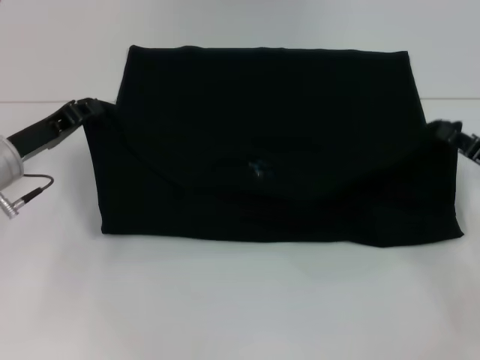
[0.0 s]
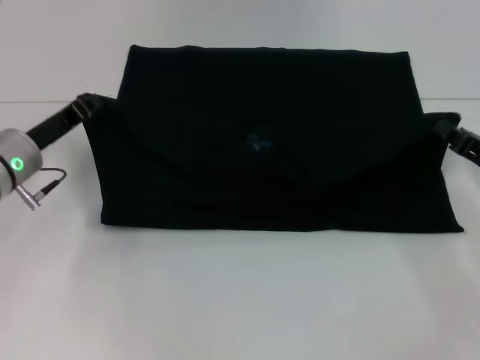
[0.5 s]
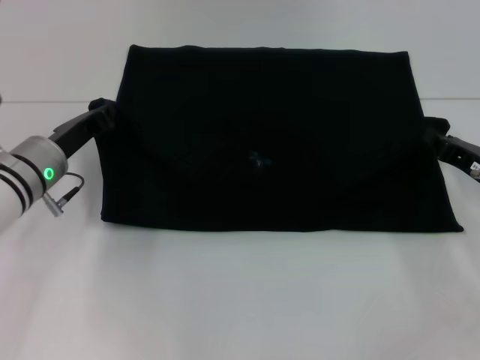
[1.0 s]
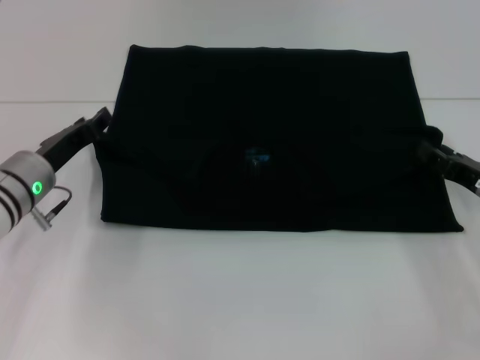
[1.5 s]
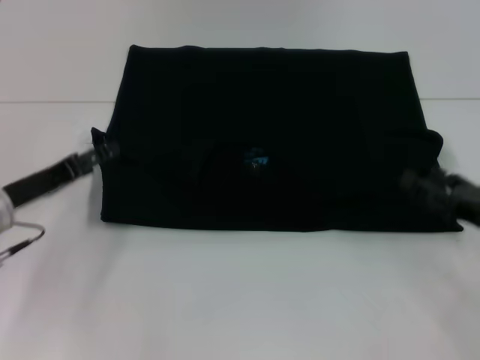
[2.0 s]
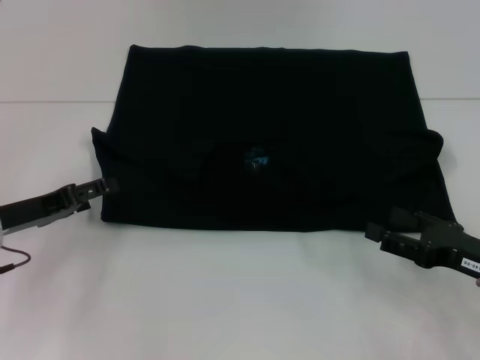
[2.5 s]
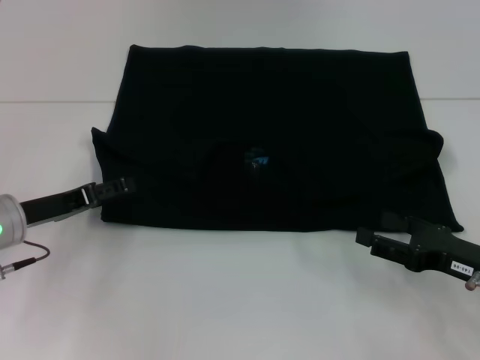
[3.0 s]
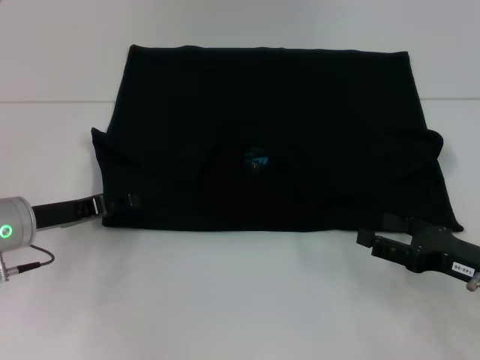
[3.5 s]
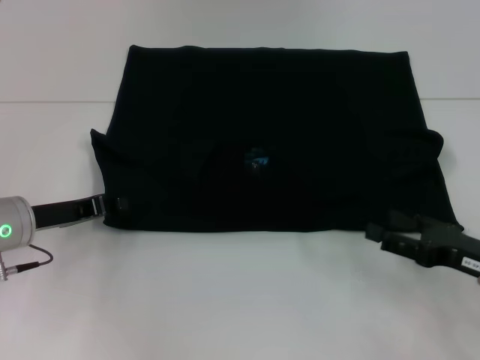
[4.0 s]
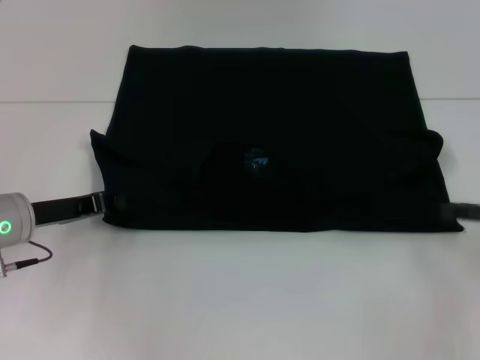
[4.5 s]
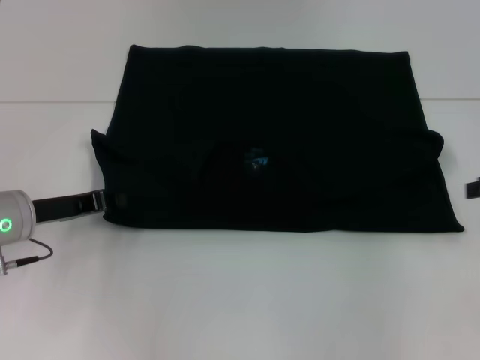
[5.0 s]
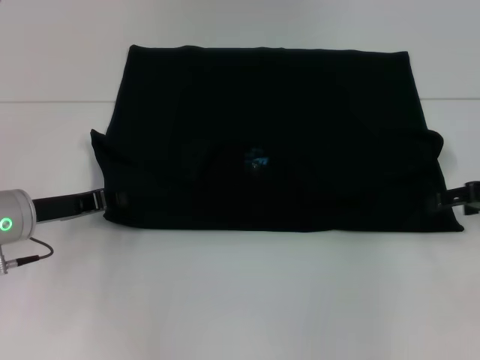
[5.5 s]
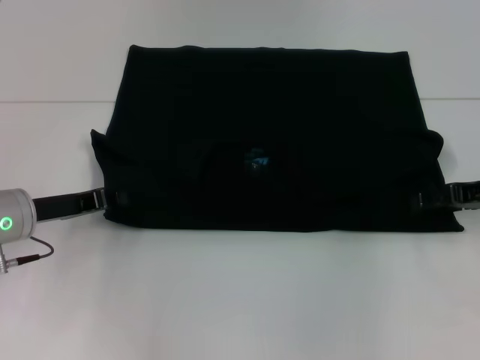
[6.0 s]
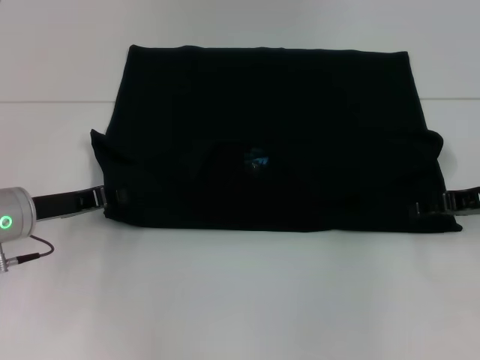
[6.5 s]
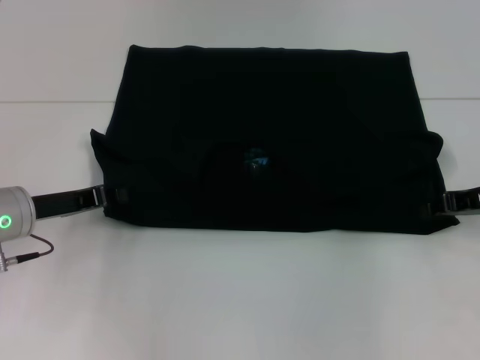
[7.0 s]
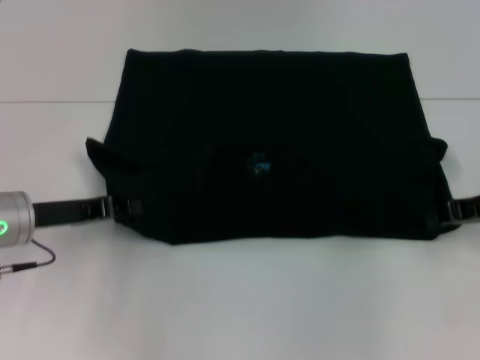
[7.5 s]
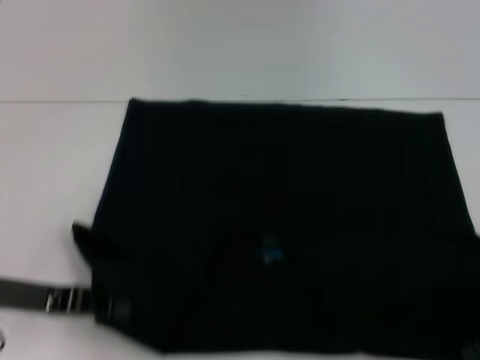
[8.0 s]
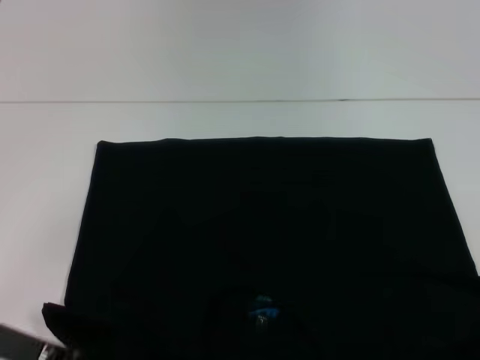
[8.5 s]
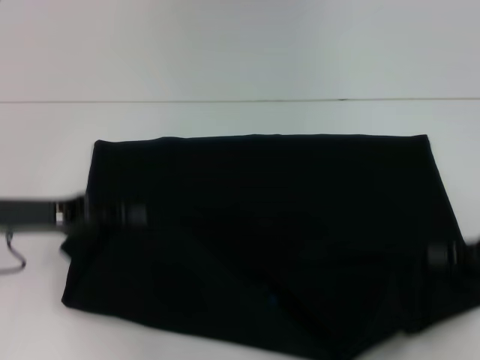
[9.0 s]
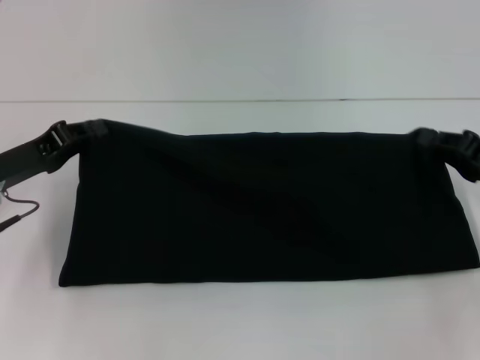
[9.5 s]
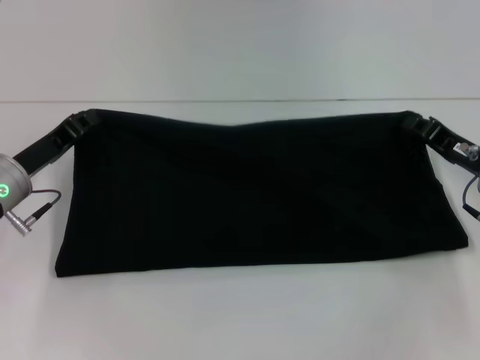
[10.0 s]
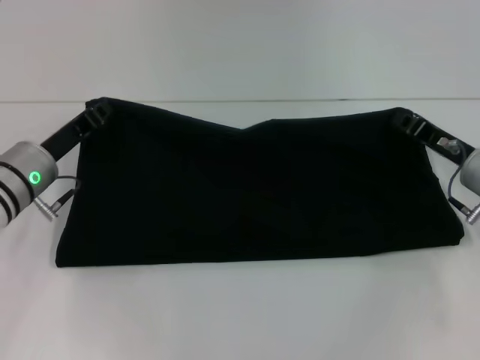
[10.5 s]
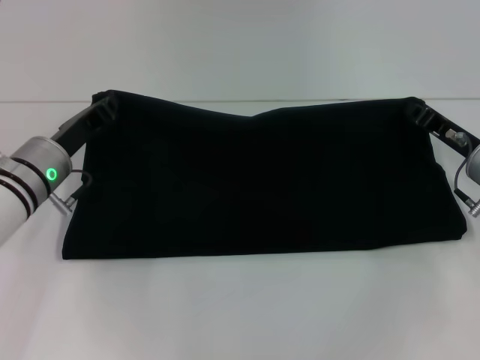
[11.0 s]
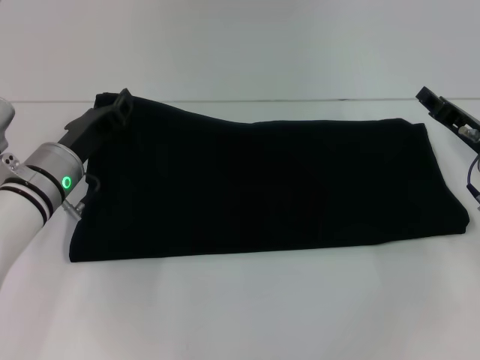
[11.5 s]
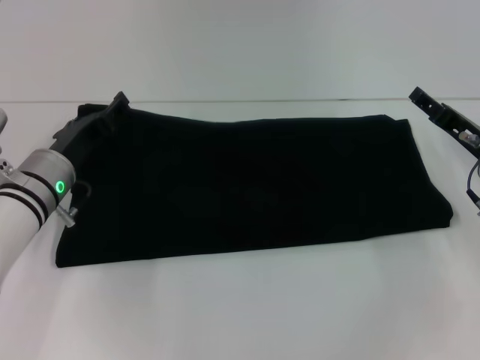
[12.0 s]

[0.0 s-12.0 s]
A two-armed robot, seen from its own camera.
Step, 2.0 to 8.0 s: Pull the clothes with your left hand.
Step, 2.0 to 8.0 s: Pull the clothes with your right hand.
0.0 to 2.0 s: The left gripper opens. The right gripper opens its fingers.
2.0 to 4.0 s: The left gripper closes up.
4.0 to 6.0 s: The right gripper travels forward and upward by roughly 15 cm.
6.0 to 8.0 s: Both grippers move backward, roughly 10 cm. The right gripper closes.
8.0 to 10.0 s: The right gripper travels forward and to the left by about 10 cm; the left gripper shifts about 10 cm forward.
10.0 to 12.0 s: The right gripper opens. The left gripper ends up about 5 cm from where it was, and opens its fingers.

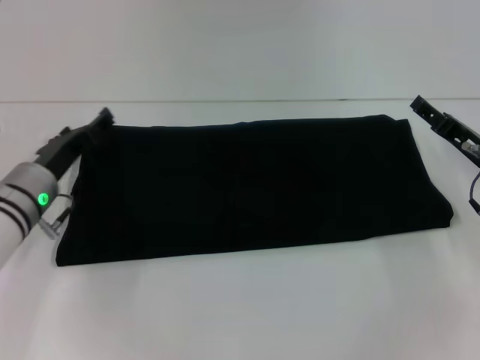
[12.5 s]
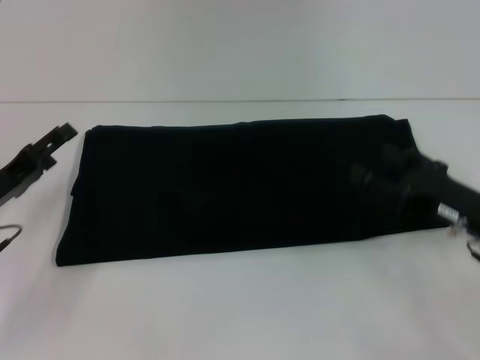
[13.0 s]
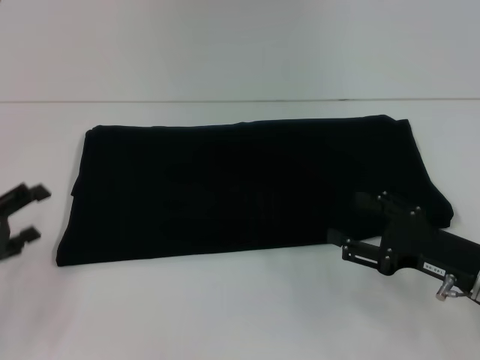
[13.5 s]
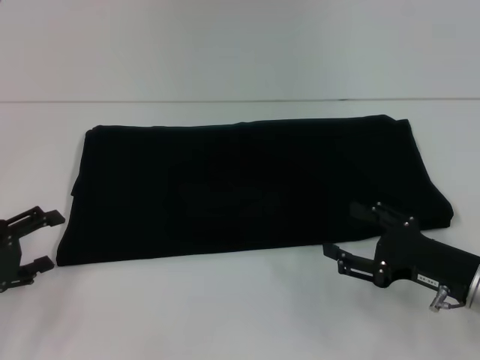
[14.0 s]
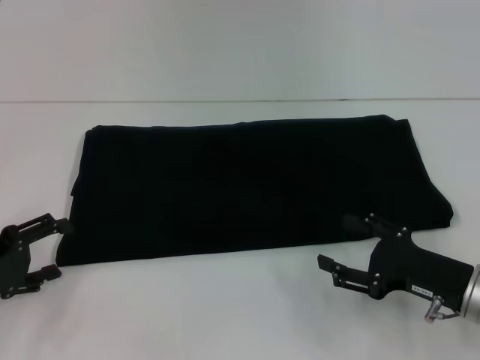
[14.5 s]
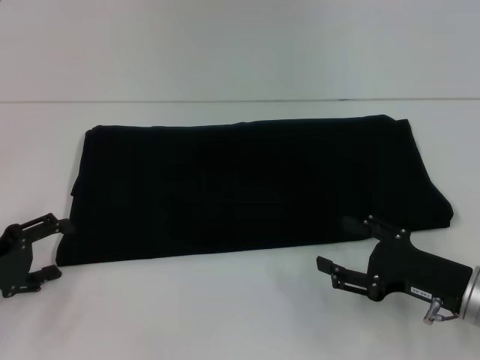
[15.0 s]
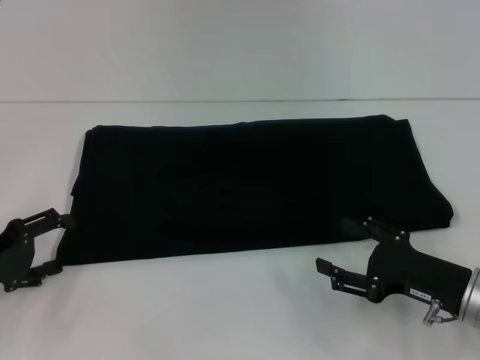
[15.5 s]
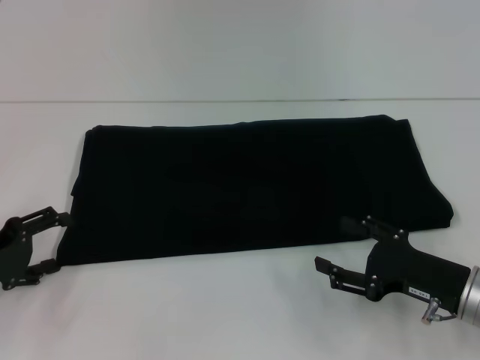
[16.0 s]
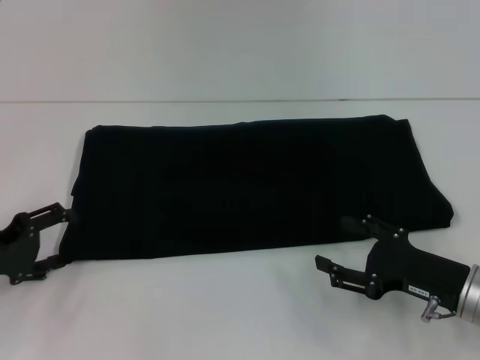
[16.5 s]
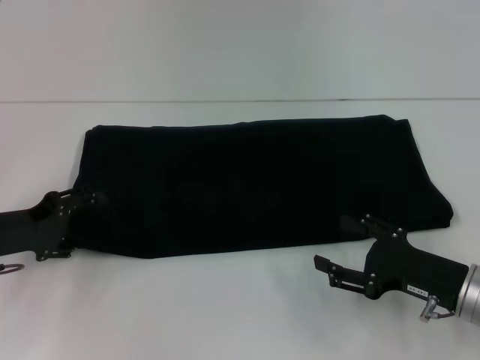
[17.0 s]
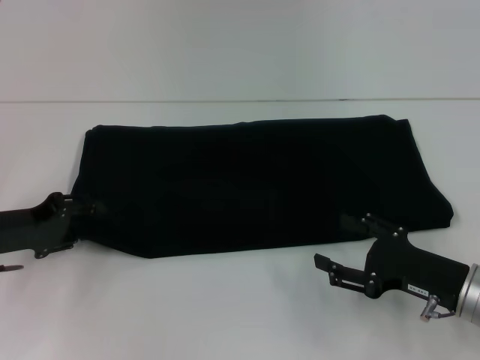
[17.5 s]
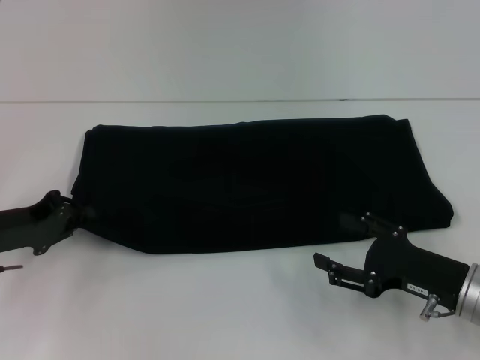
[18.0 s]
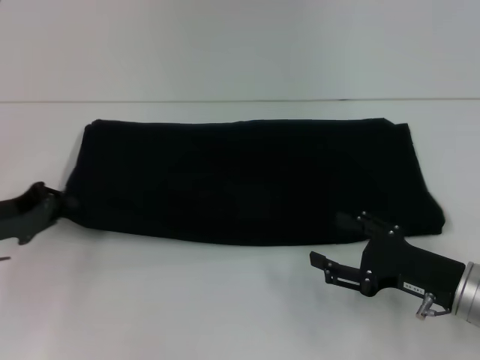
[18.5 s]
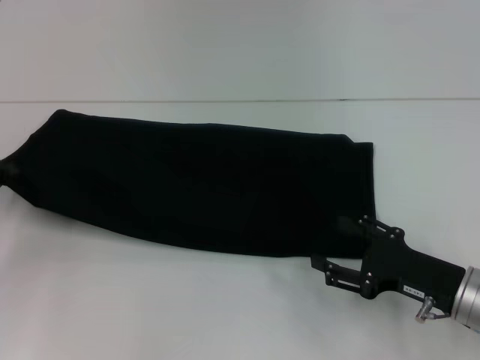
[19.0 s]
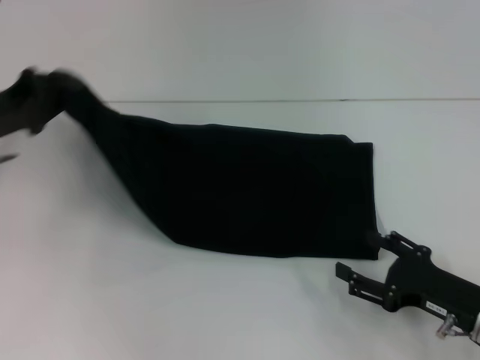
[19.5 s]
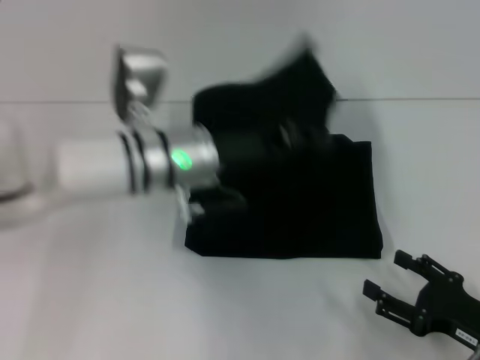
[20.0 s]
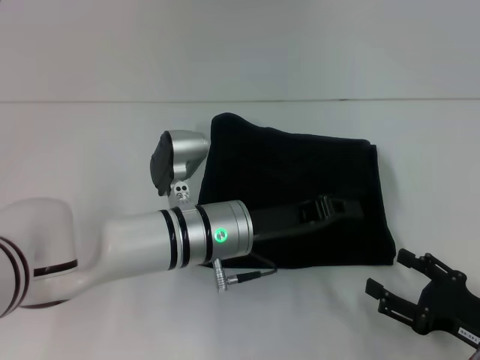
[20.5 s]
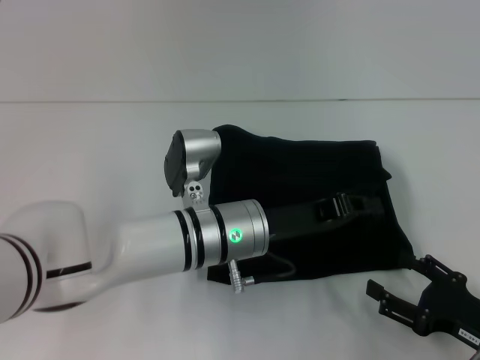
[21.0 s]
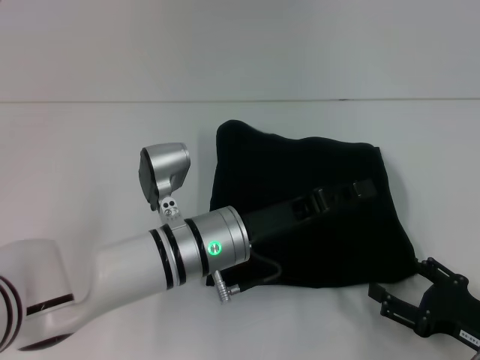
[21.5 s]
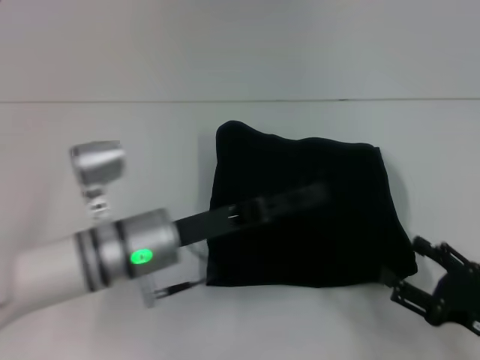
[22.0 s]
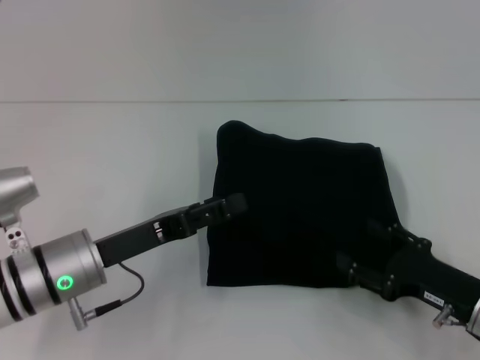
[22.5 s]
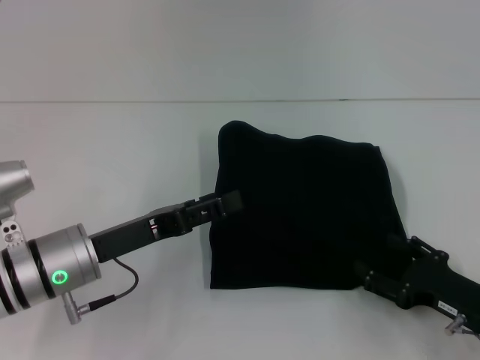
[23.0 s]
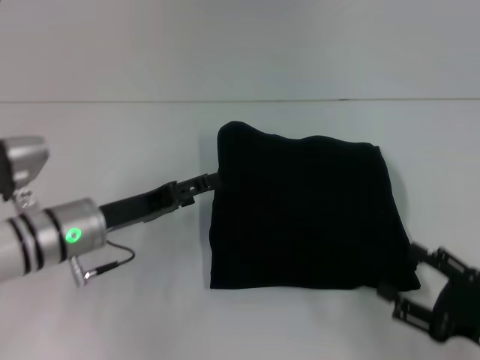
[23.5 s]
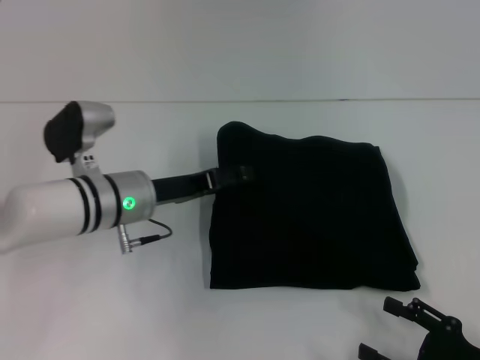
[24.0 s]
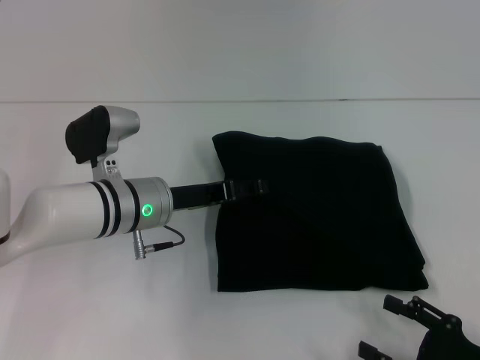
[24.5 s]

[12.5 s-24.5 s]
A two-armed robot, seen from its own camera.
Step, 12.5 to 21.5 s: Fold the clothes with your left hand.
12.5 to 14.5 s: The right gripper goes some 10 cm backward. Meanwhile the left gripper goes about 15 cm backward and to the left.
14.5 to 16.5 s: The grippers make only small movements.
16.5 to 18.5 s: The left gripper closes up.
18.5 to 20.5 s: The right gripper goes about 5 cm backward; the left gripper is displaced to the right by approximately 25 cm.
20.5 to 22.5 s: The left gripper shifts approximately 15 cm to the left, and opens. Meanwhile the right gripper changes place by about 5 cm.
22.5 to 24.5 s: The right gripper heads backward, covering roughly 10 cm. Meanwhile the left gripper heads forward and to the right, covering roughly 10 cm.

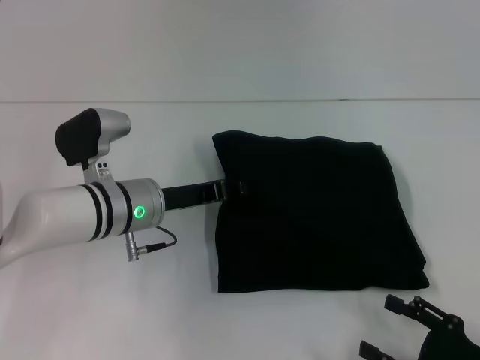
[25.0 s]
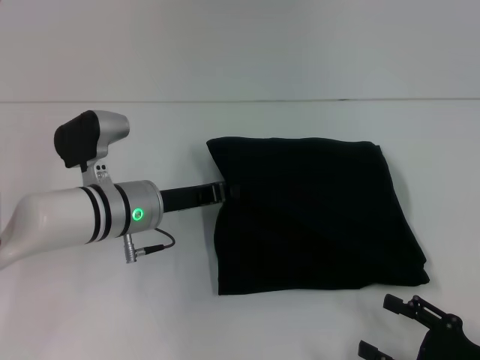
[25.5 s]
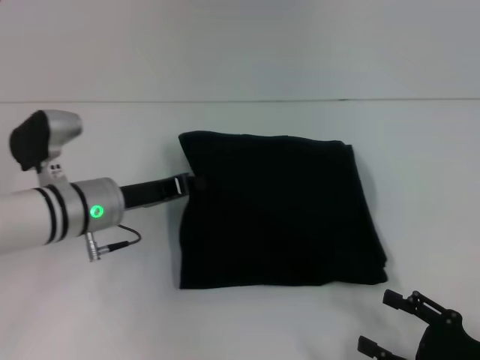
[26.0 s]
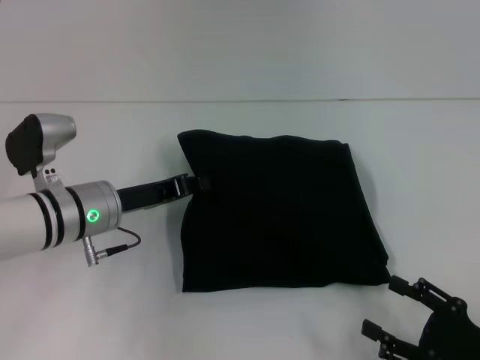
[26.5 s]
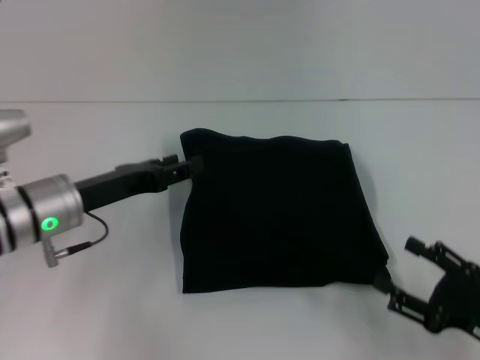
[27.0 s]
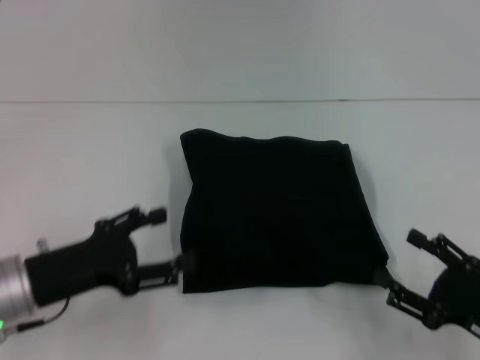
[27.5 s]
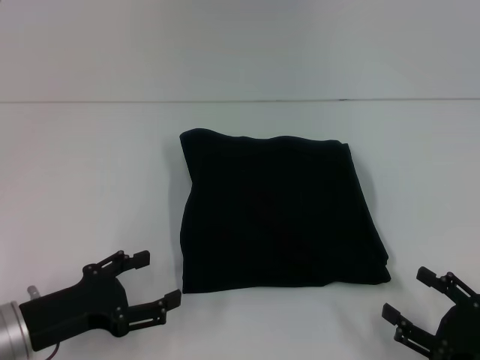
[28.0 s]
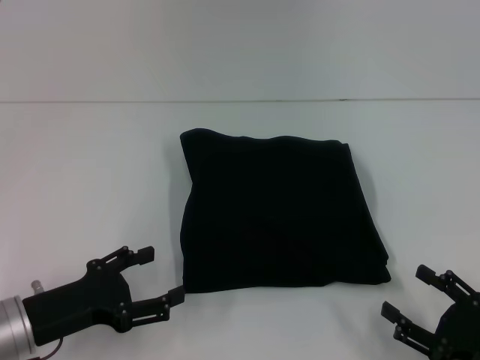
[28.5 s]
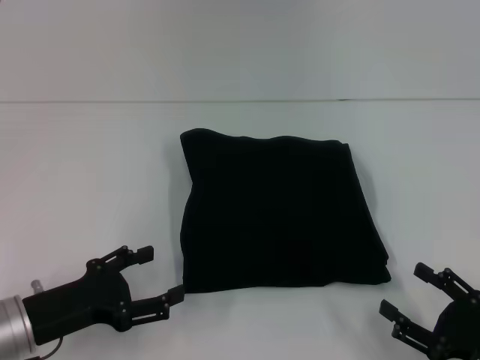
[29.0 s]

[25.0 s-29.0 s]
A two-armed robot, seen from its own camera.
25.0 to 27.0 s: The left gripper goes about 5 cm to the left, and closes and opens again.
27.0 to 29.0 s: The left gripper shifts some 10 cm backward, and opens up.
